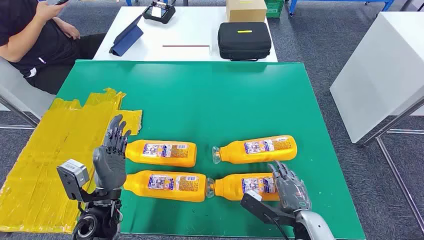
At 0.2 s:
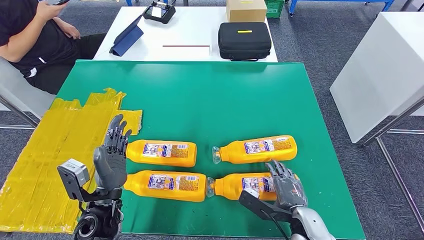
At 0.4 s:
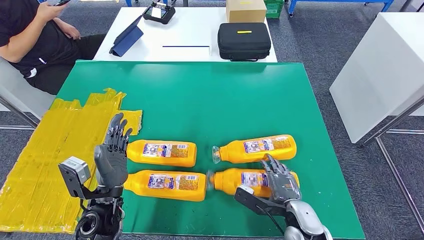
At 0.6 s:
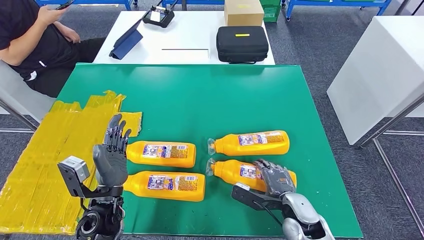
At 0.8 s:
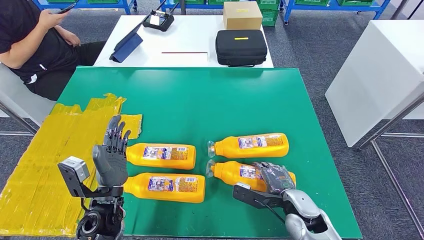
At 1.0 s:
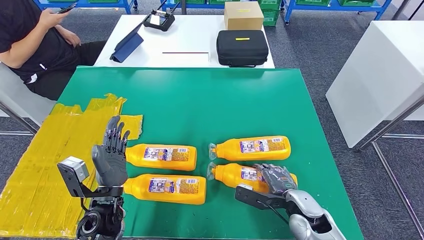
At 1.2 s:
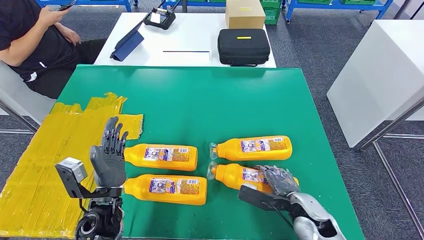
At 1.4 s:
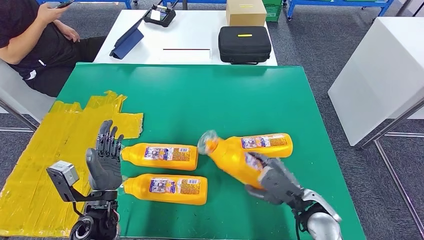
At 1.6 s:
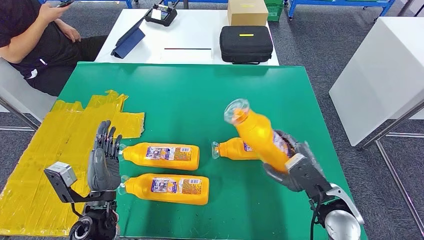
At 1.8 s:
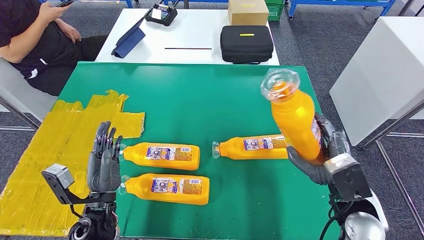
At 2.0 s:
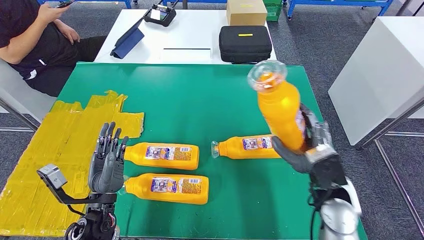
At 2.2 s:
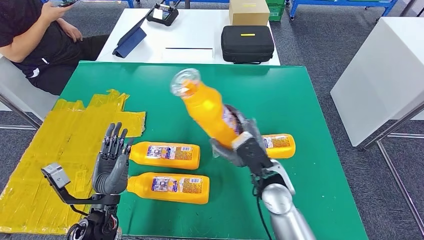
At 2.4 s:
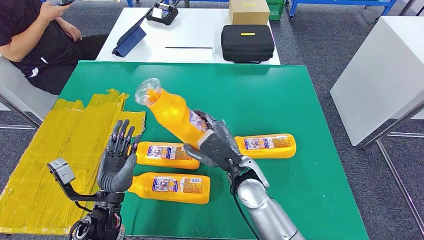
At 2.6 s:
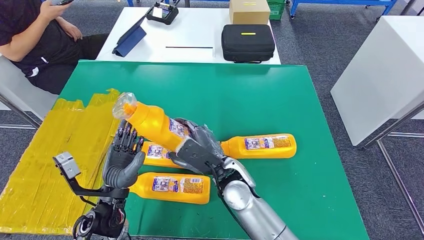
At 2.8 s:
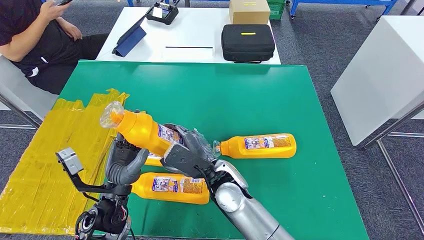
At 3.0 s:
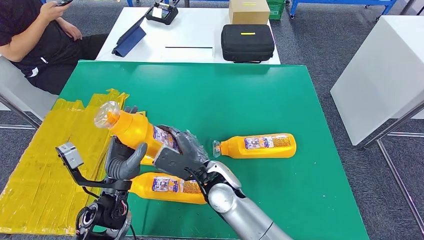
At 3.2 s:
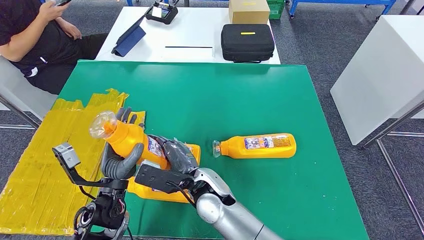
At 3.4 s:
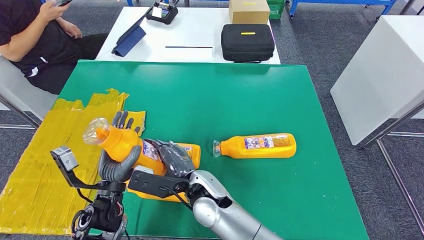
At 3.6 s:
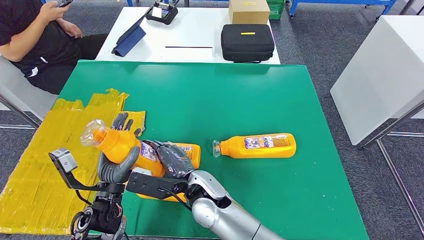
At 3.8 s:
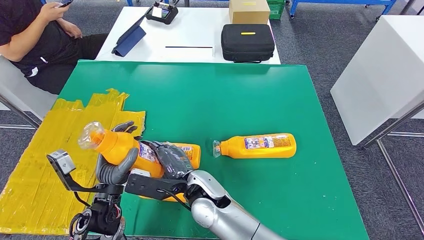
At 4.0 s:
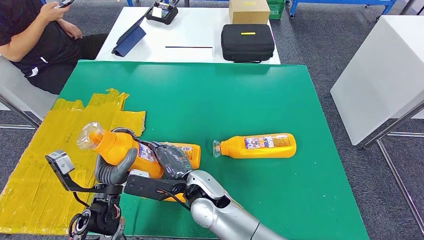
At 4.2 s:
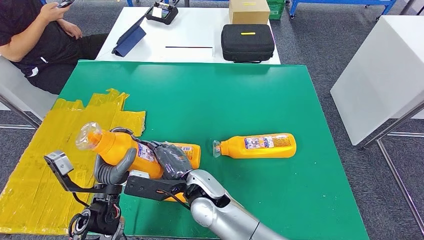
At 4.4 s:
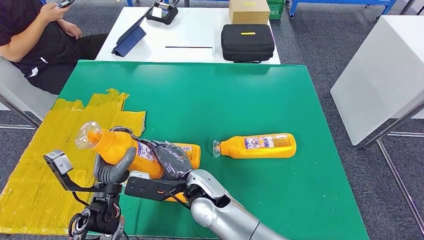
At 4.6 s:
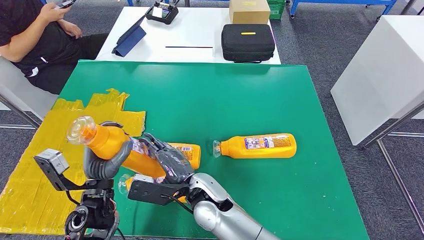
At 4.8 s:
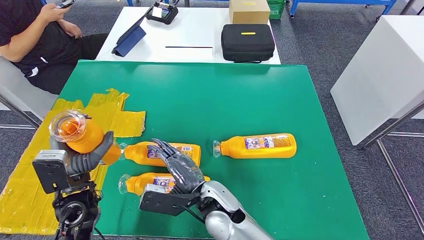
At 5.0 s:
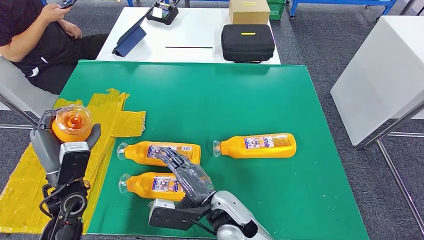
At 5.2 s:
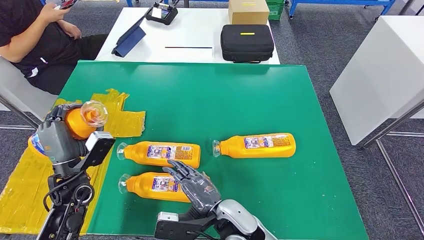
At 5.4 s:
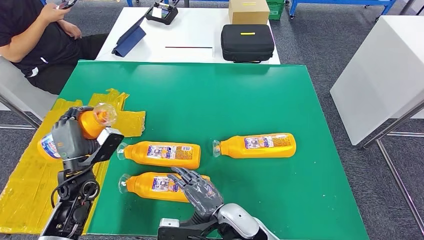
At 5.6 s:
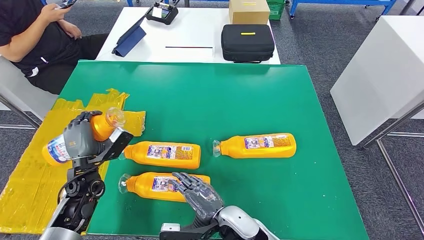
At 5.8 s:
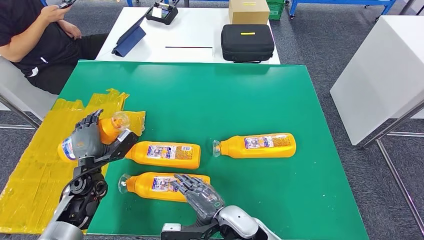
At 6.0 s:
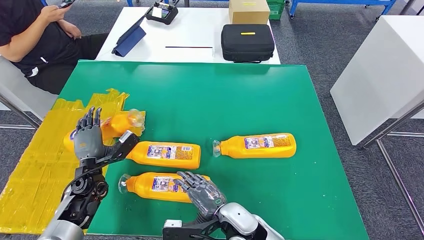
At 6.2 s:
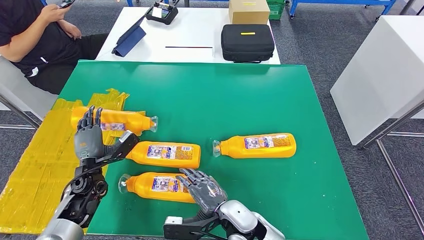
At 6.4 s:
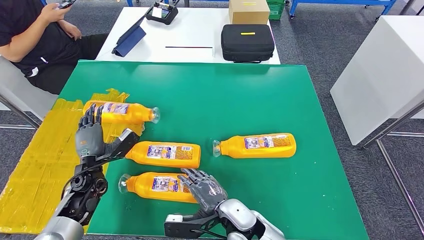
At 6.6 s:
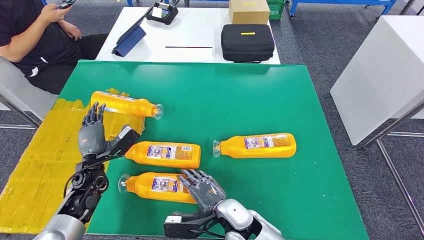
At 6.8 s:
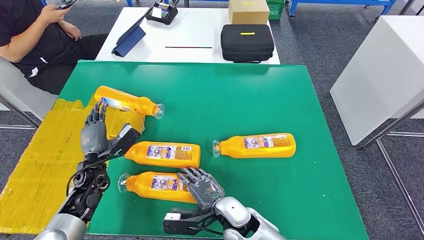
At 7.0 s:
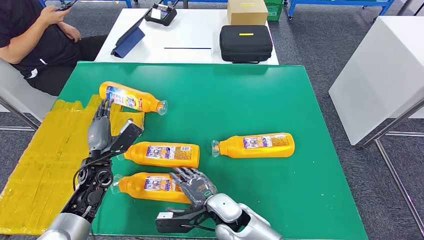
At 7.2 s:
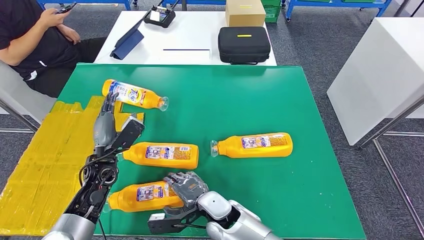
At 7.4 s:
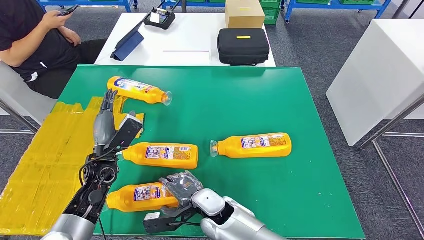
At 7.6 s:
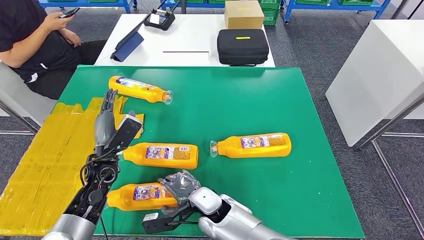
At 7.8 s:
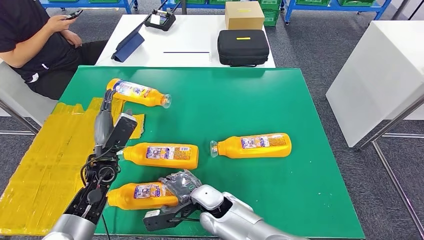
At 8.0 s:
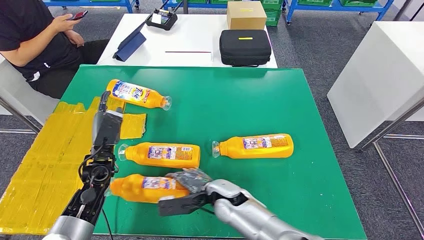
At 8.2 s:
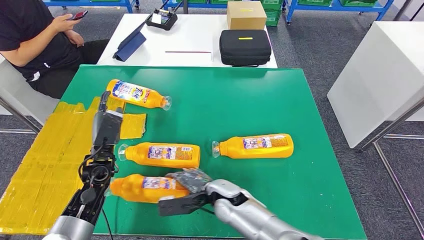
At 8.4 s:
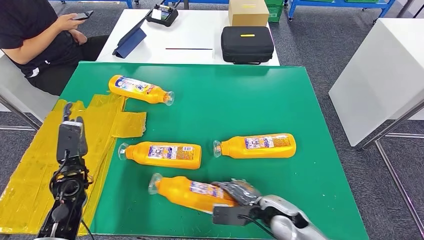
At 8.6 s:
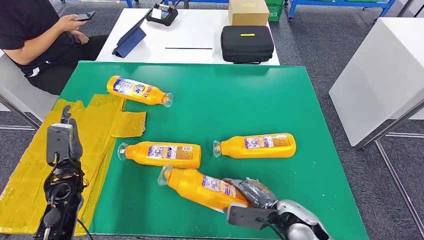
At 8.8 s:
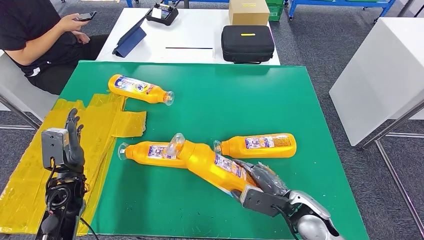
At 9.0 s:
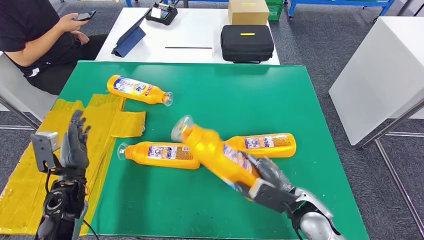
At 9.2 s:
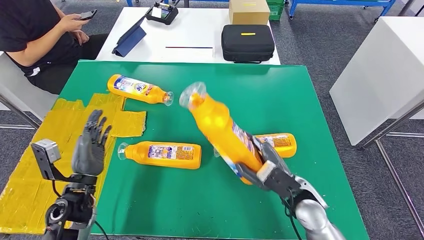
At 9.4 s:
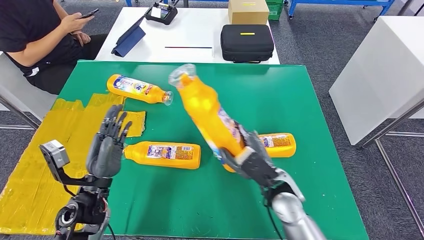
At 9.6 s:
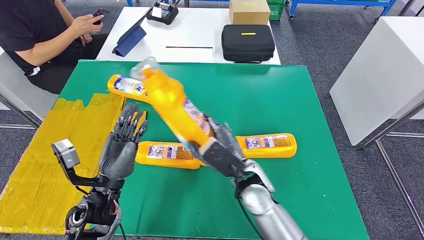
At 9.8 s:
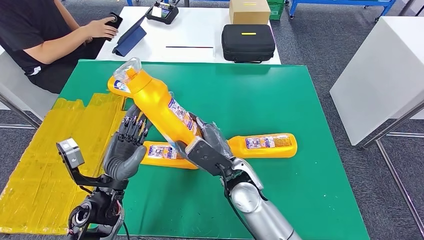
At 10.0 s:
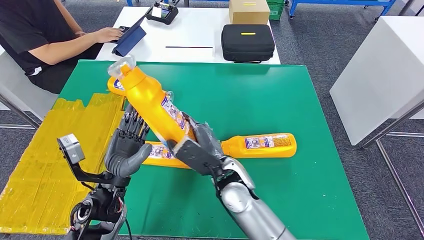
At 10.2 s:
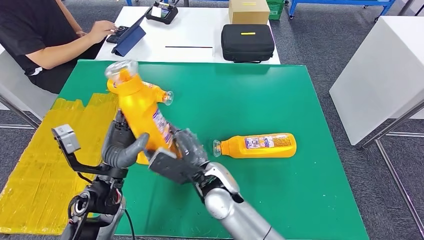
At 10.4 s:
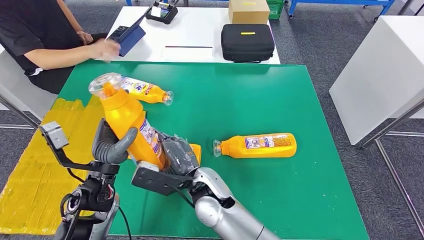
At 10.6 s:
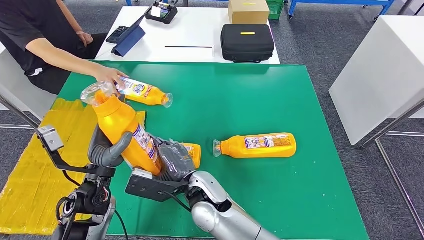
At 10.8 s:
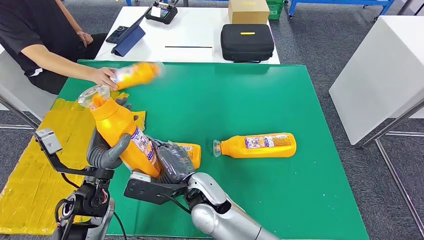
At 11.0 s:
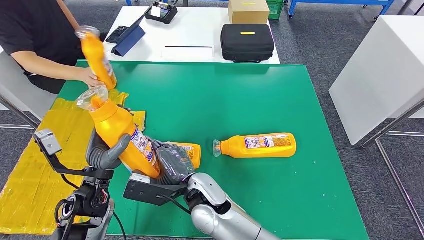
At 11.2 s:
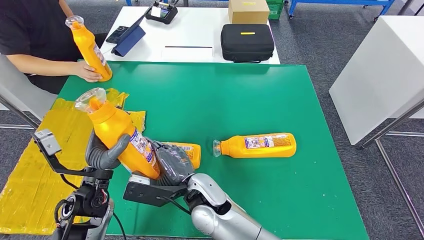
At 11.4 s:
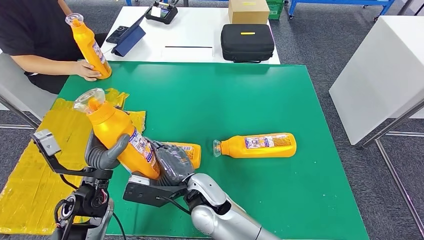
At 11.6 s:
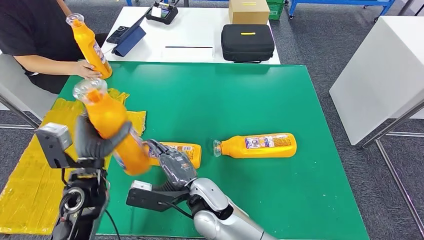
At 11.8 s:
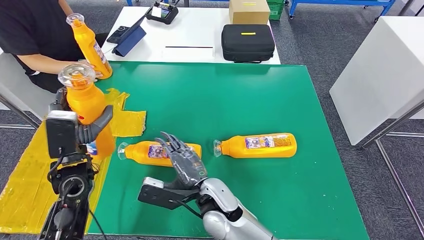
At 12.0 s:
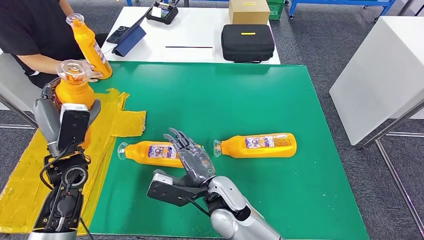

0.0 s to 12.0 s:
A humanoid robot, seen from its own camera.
Step, 0.0 to 2.4 s: Take the fast-moving consumer goods bottle from the table.
Step, 3.8 to 6.2 s: Flip the fast-moving consumer goods bottle to the front side.
Step, 7.2 to 8.6 s: Pick up the fast-moving consumer goods bottle from the table.
3.0 to 4.4 s: The hands move only a little.
4.4 to 6.0 s: The left hand heads to the left, forward and downward, covering approximately 15 cm. The right hand goes roughly 10 cm to the right, backward and downward.

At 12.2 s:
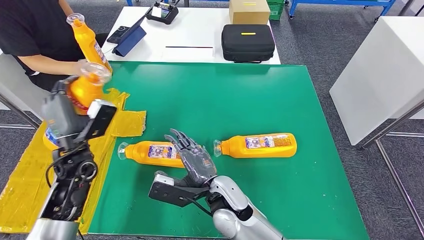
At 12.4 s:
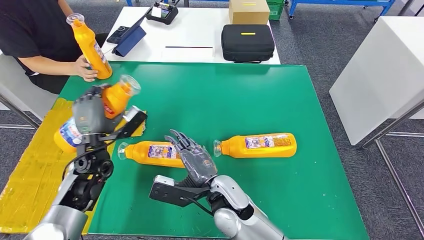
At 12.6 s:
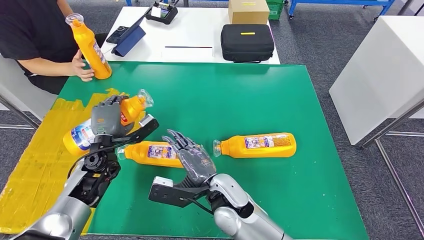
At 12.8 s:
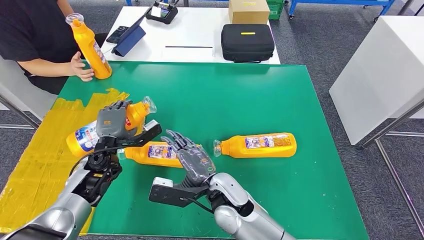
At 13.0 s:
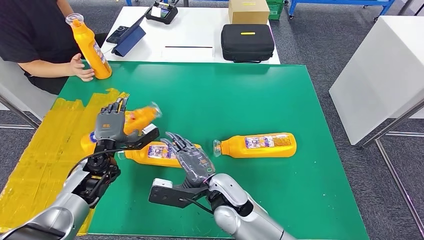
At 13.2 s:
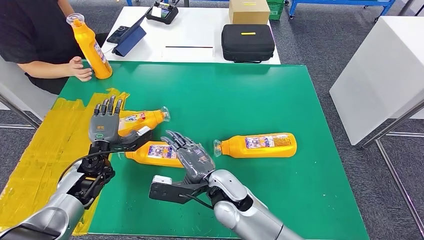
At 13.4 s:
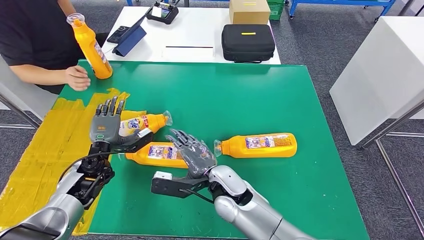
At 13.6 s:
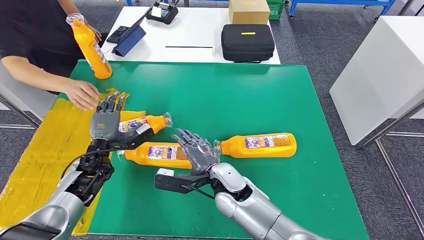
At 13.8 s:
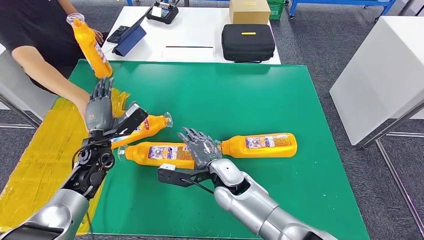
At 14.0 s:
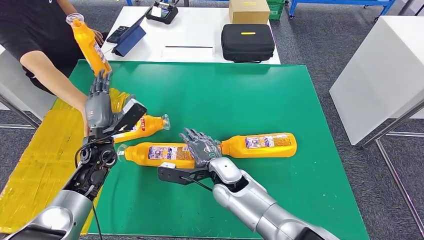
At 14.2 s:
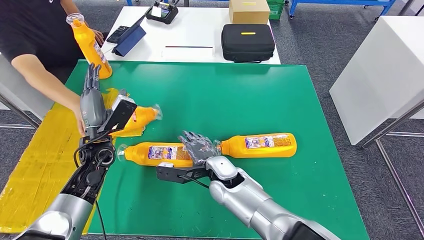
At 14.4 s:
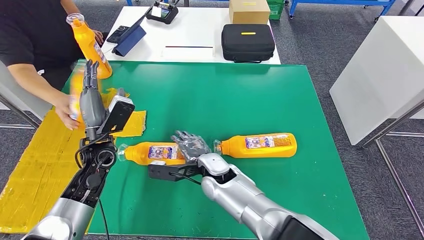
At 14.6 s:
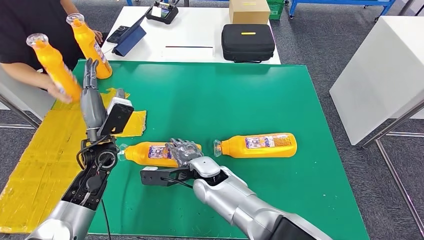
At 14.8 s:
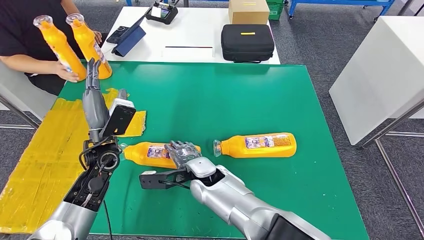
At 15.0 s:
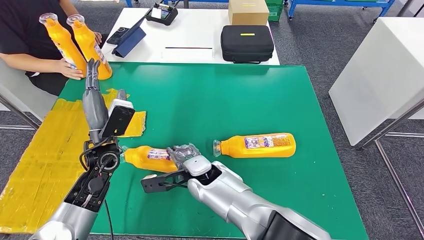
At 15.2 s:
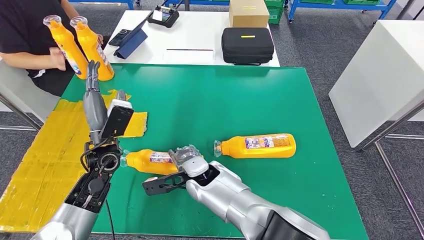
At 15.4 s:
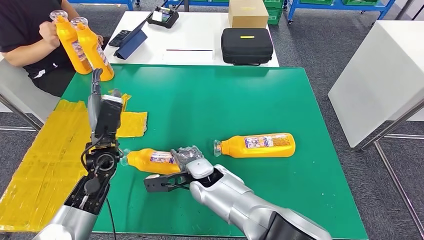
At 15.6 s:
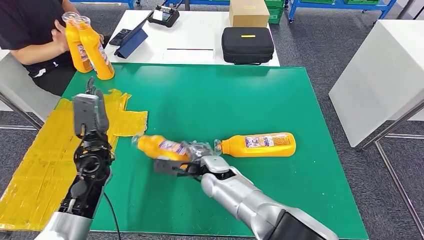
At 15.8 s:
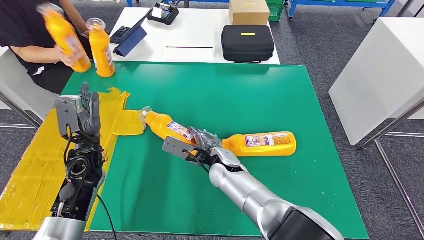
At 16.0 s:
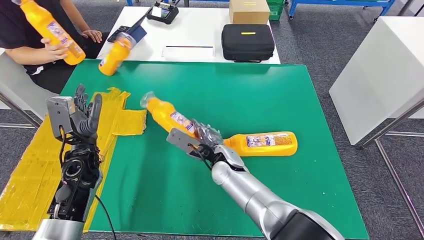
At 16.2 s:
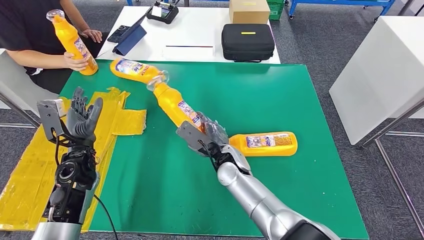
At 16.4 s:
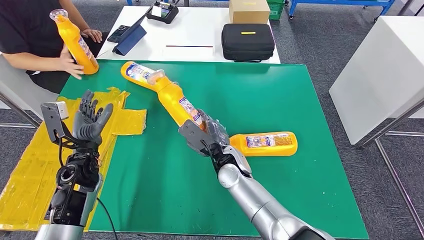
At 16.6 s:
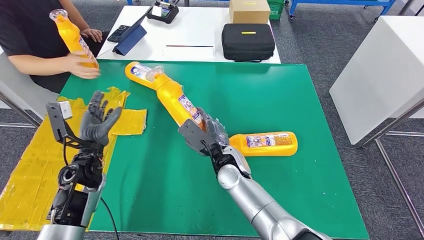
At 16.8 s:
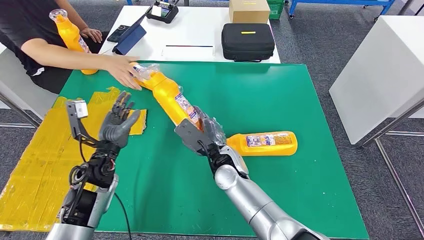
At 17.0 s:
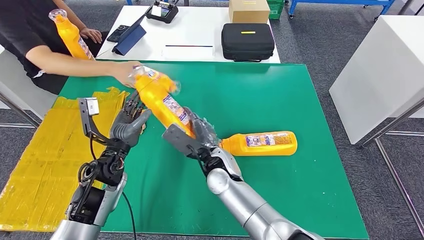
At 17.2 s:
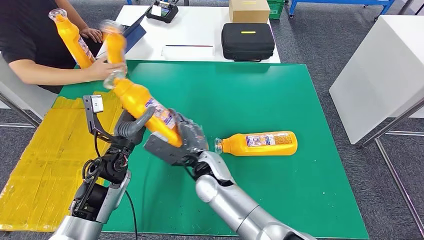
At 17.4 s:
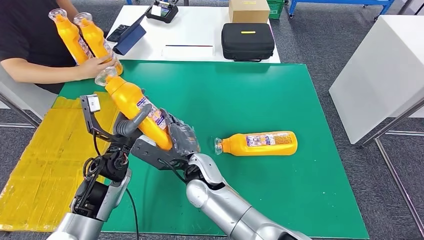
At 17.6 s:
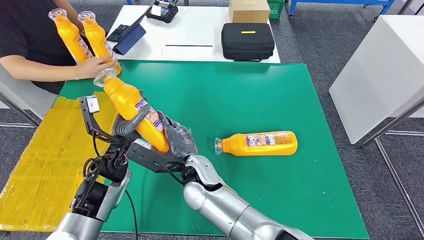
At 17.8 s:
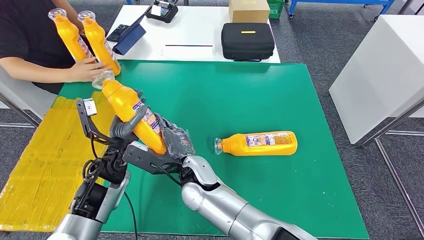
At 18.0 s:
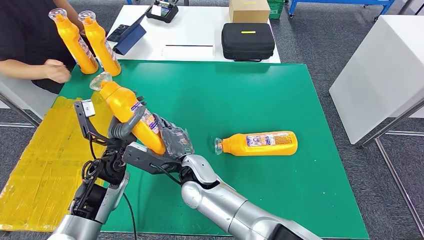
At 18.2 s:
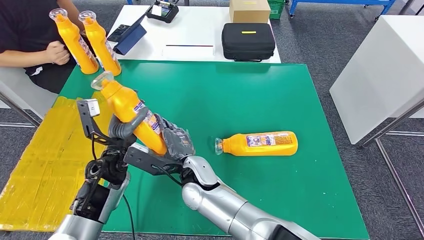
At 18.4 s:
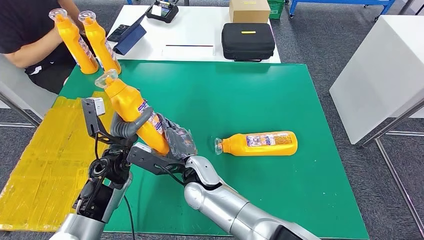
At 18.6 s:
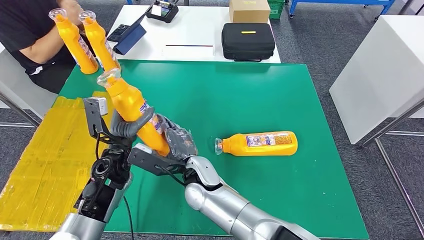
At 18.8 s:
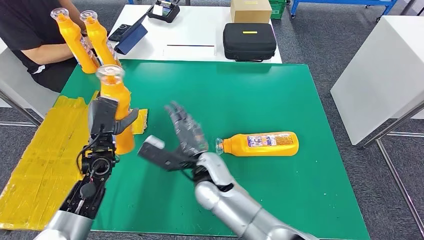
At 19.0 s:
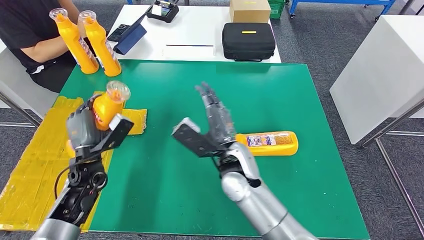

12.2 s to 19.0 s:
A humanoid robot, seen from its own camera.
Step, 15.2 to 16.4 s: Pick up the fast-moving consumer goods bottle from the table.
12.2 to 13.6 s: The left hand goes some 10 cm downward.
